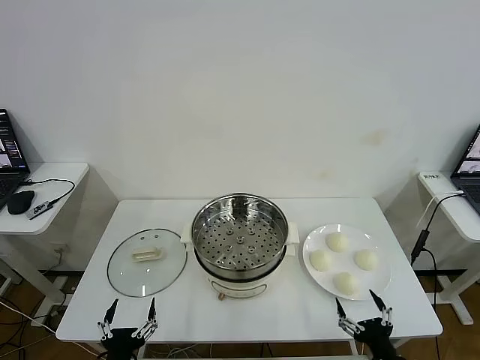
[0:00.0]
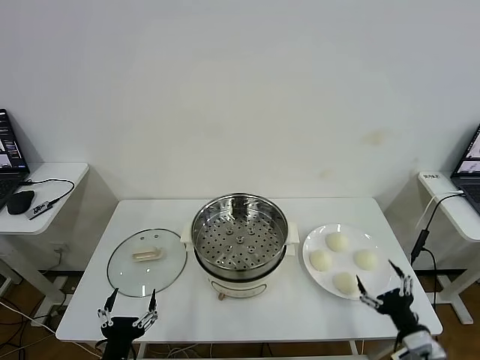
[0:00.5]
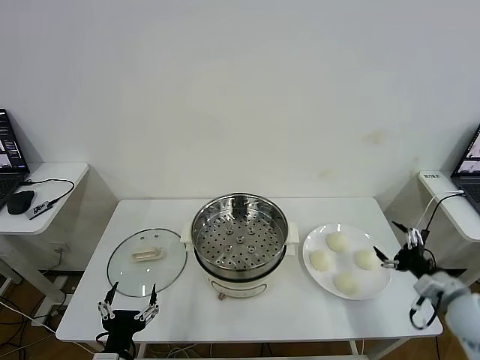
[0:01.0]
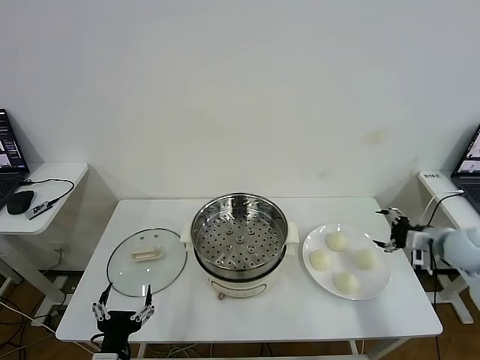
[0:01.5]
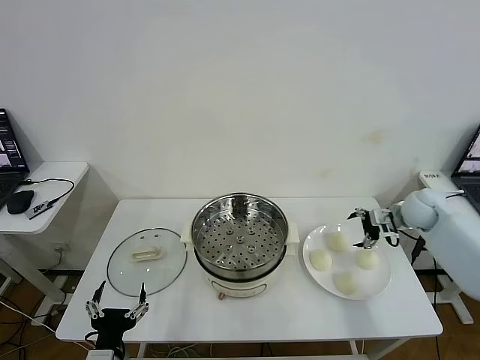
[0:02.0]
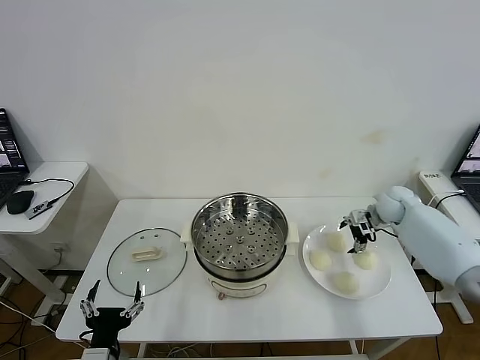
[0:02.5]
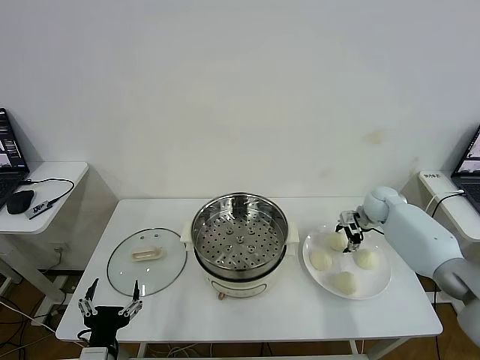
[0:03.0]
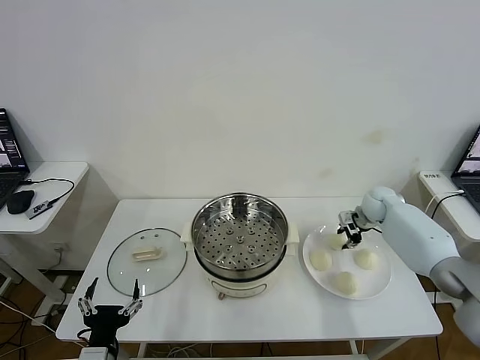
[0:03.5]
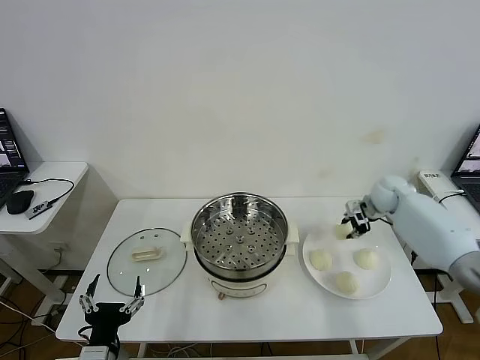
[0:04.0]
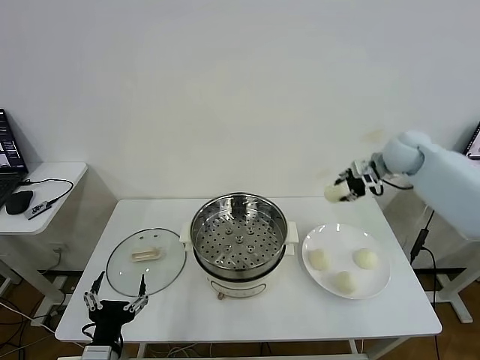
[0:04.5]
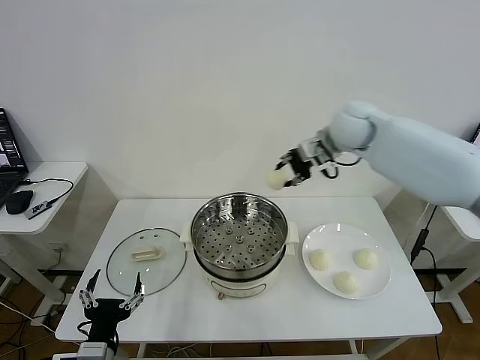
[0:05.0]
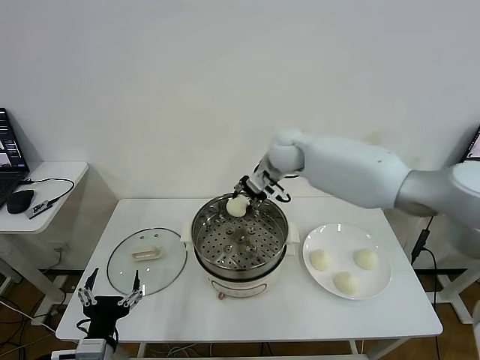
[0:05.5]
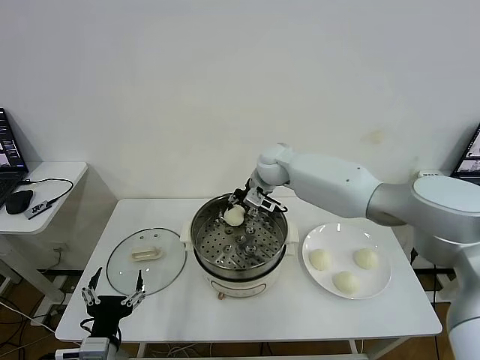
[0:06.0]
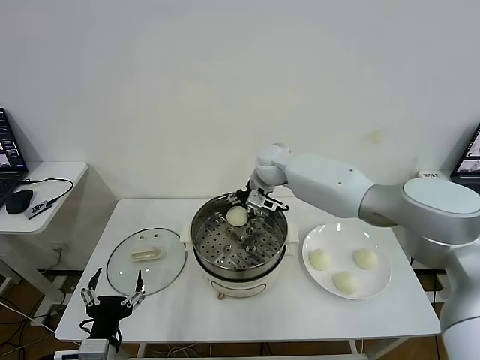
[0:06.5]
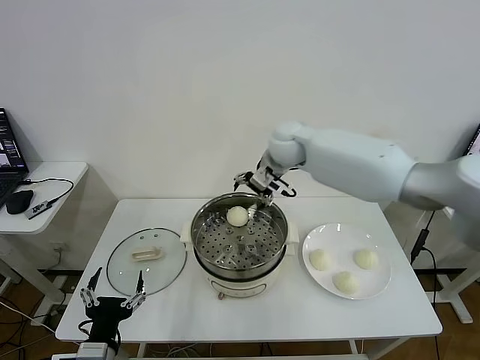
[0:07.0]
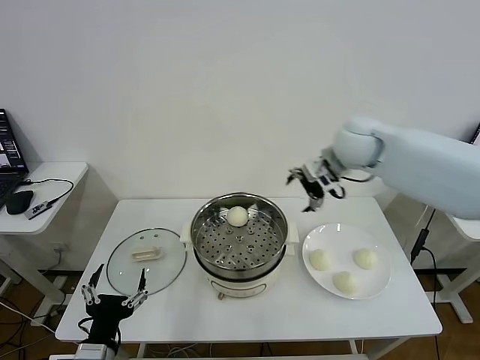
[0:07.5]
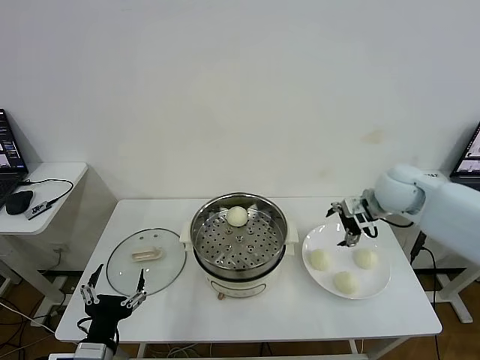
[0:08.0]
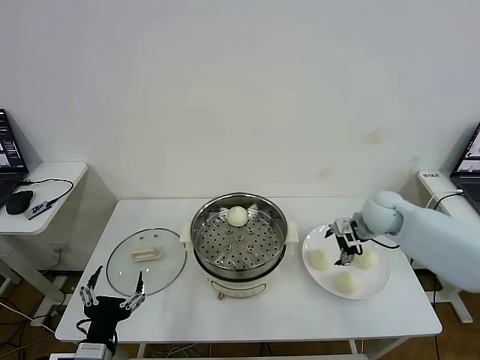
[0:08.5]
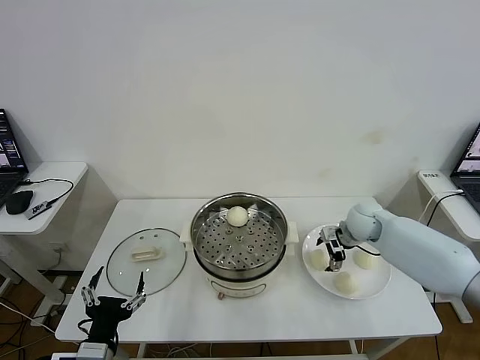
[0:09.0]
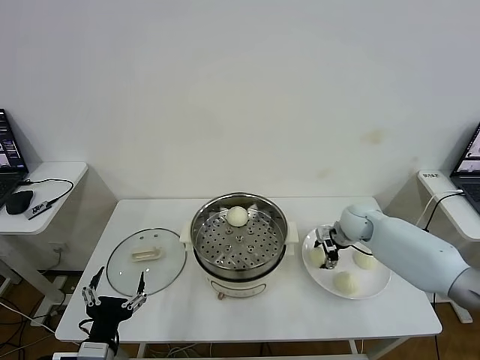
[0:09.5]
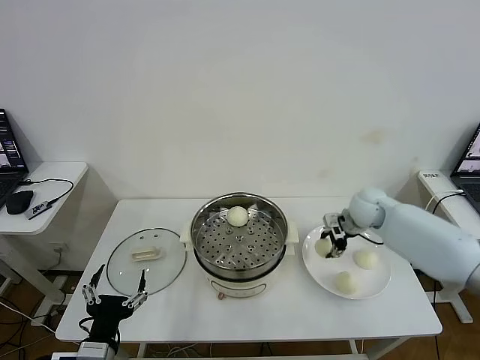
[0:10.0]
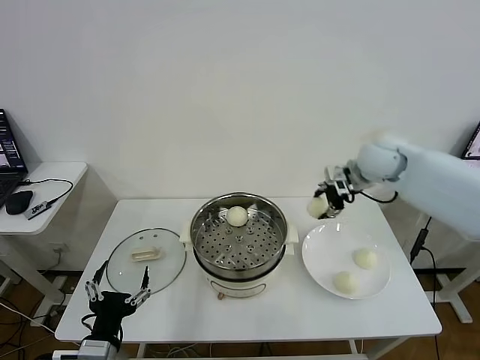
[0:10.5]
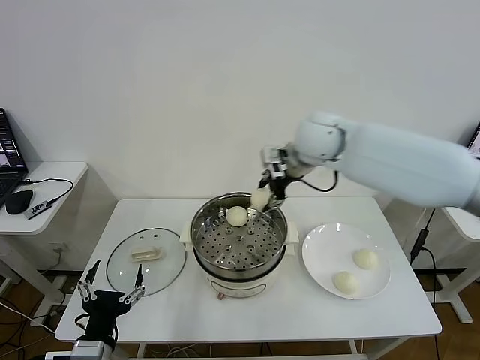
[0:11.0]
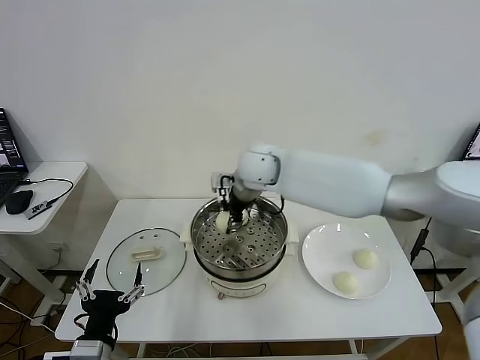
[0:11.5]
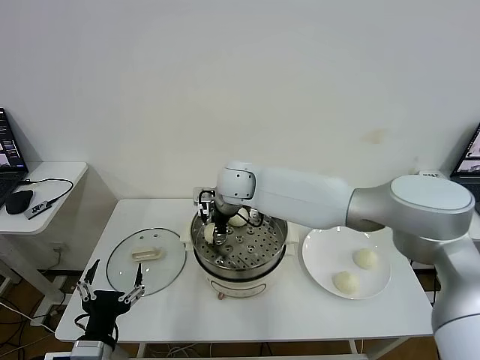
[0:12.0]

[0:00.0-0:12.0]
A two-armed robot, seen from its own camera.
Task of the whole recording: take steamed baozi put them in steamer then cover it.
Step, 0.0 to 3.5 s: Grasp the baozi in the plate with right gripper.
Step, 4.0 to 6.5 s: Place the baozi on the steamer with right gripper.
Step, 7.0 to 9.5 s: Grasp the baozi in the plate with right gripper.
2.0 to 4.0 s: The right gripper moves approximately 5 cm, and closes up.
4.0 to 6.0 s: The right gripper travels to the left by about 30 cm.
6.0 to 8.0 s: The right gripper is displaced to the right and backward by about 30 cm, and opens.
8.0 to 10.0 s: The right gripper is displaced downward by some 5 cm, and closes its fingers.
10.0 to 12.0 s: The right gripper travels to the left by approximately 35 cm.

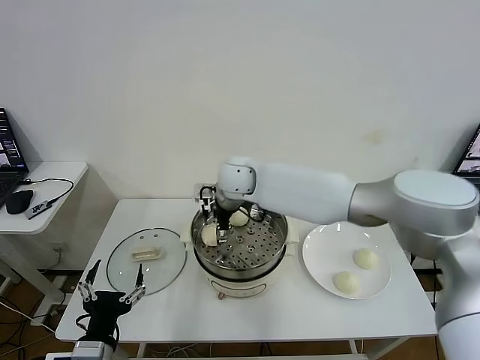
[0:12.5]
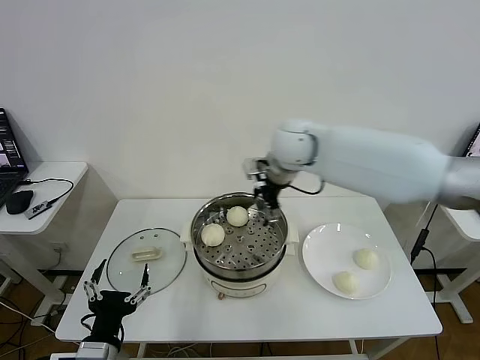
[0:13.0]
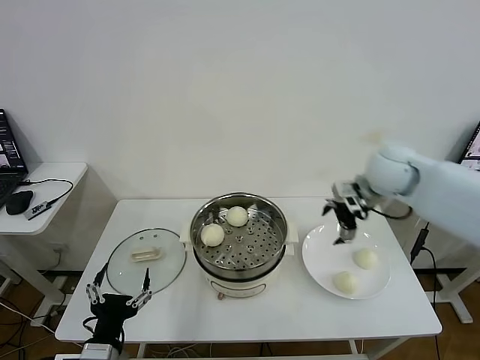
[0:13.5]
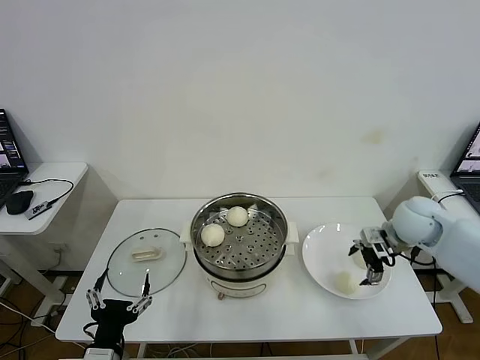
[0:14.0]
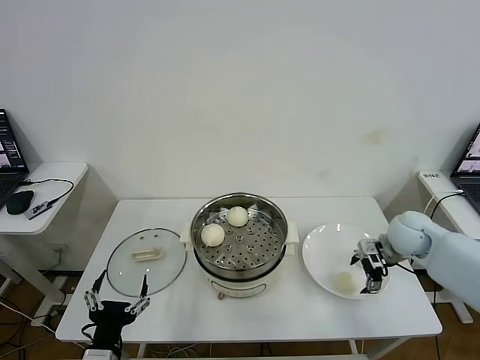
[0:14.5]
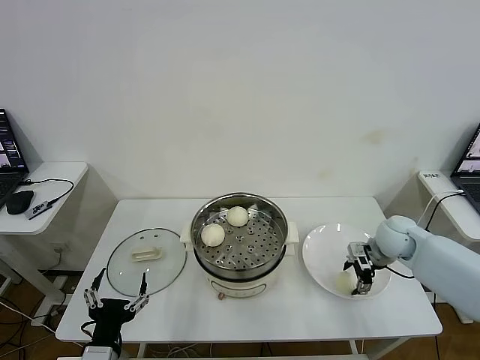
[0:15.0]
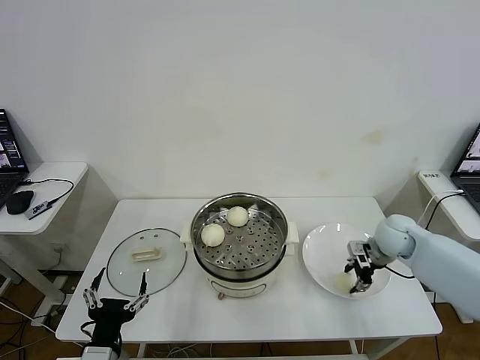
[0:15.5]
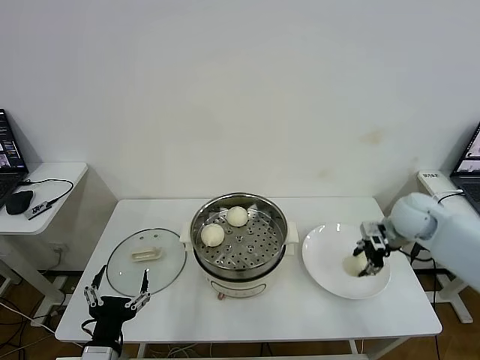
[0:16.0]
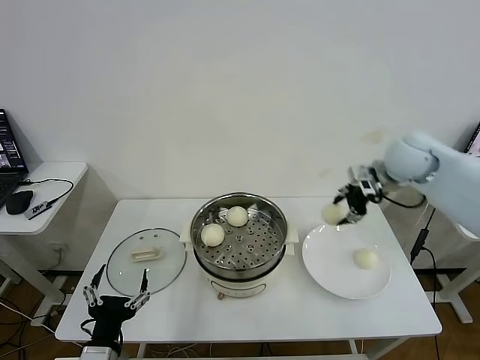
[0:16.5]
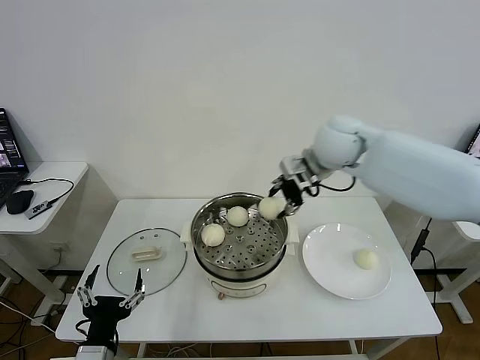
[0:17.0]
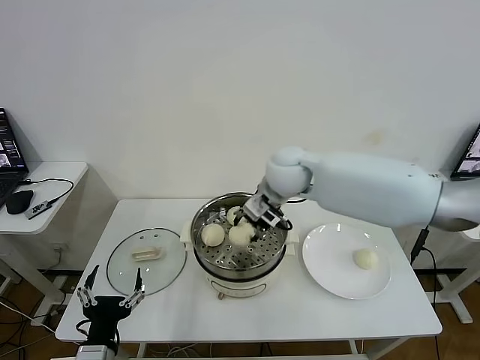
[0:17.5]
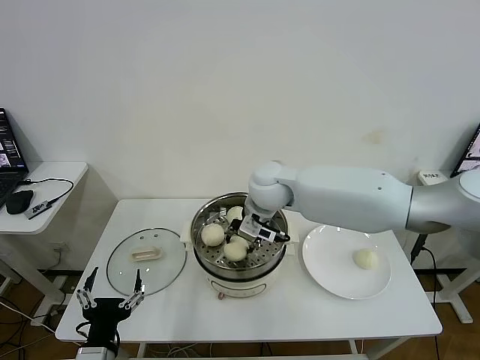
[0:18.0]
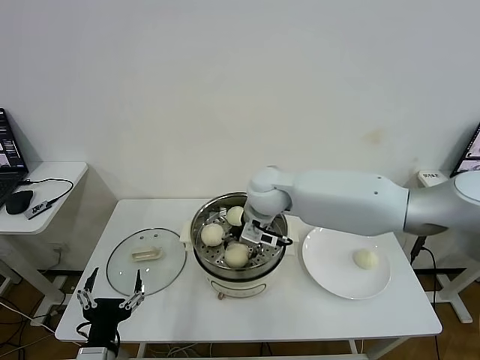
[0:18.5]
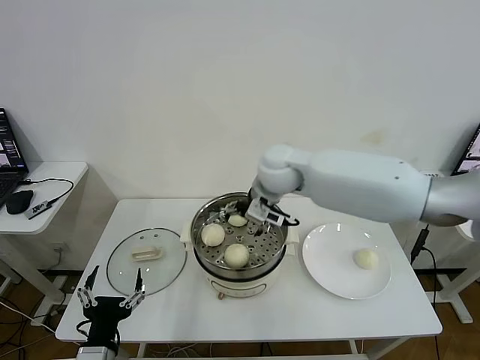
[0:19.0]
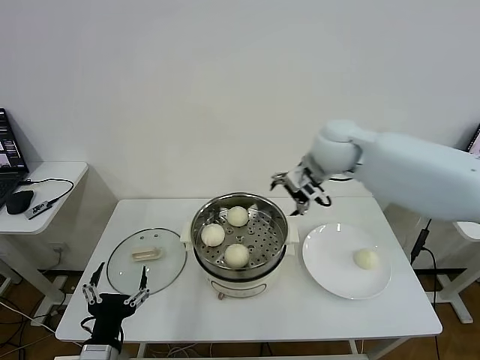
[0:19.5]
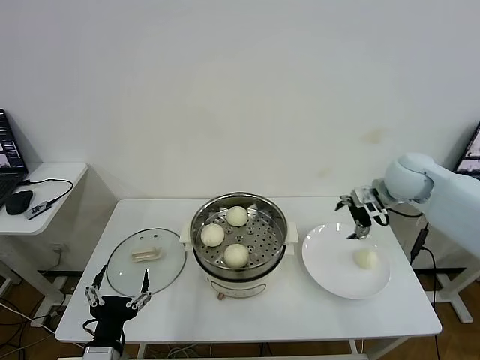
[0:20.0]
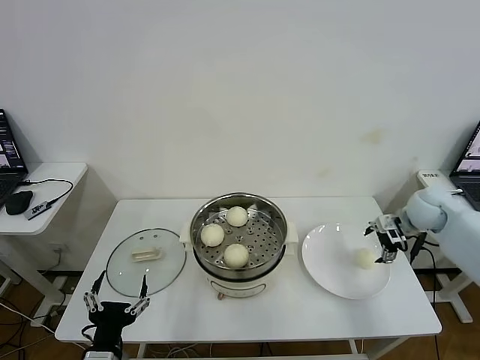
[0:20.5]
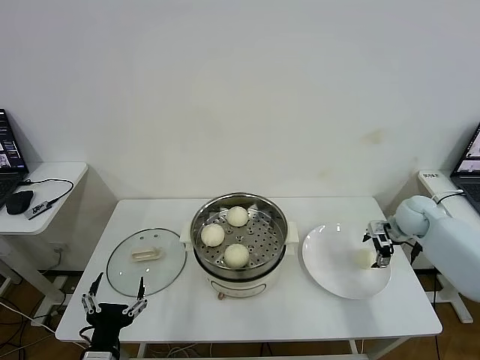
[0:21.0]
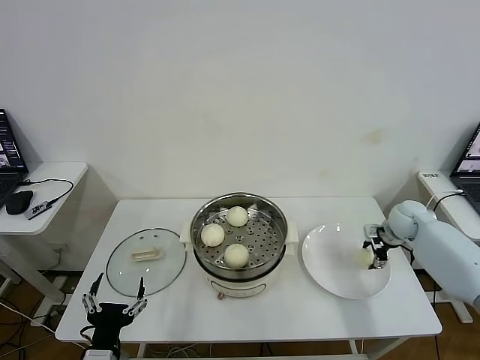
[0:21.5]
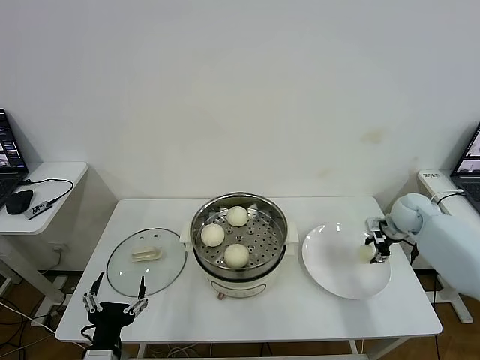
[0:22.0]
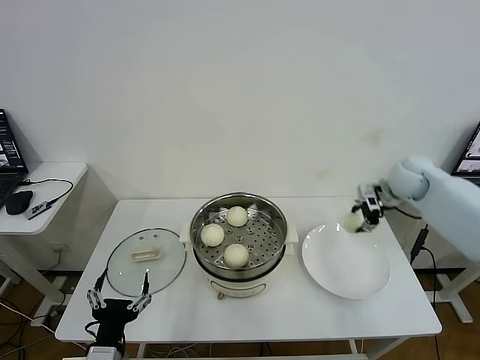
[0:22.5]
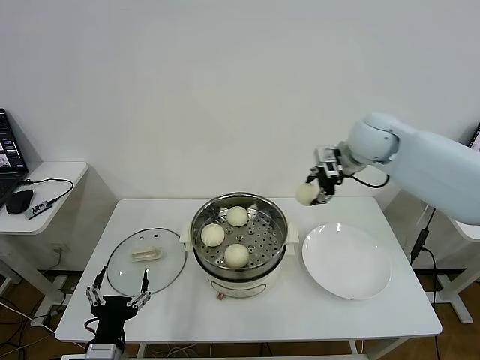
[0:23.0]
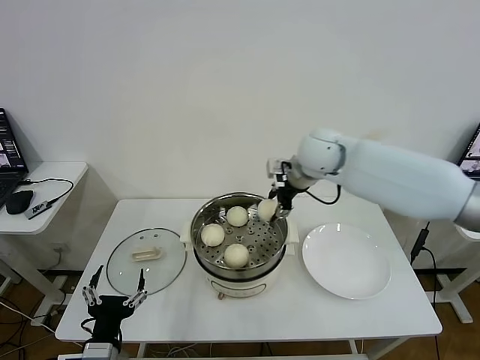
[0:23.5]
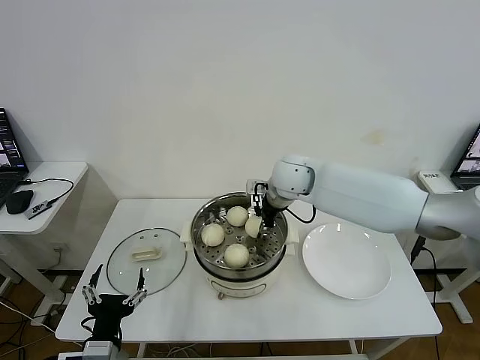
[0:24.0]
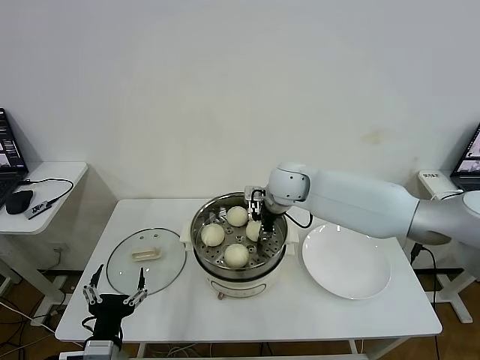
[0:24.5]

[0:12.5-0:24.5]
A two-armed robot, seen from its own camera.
Task of the whole recording: take steamed baozi put them in steamer then cover it.
Step, 12.5 to 15.0 s: Grasp the baozi in the plate with right gripper.
Step, 15.5 to 18.5 s: Place the baozi on the steamer with right gripper.
Step, 19.0 to 21.5 s: Grasp the baozi in the plate with right gripper.
12.5 to 14.5 s: The right gripper is displaced to the right by about 40 cm.
14.5 to 16.5 s: The right gripper shifts roughly 20 cm upward, and closes.
16.5 to 18.5 s: The right gripper heads to the left, covering some 25 cm, and opens up.
18.5 to 20.5 s: The right gripper moves to the right, some 40 cm.
20.5 to 22.5 s: The right gripper shifts some 10 cm upward and to the left, and closes its fingers.
22.5 to 24.5 s: The right gripper goes roughly 25 cm to the left.

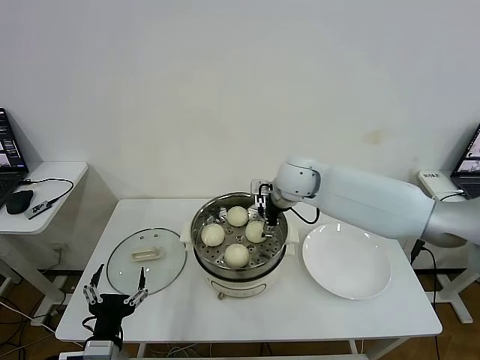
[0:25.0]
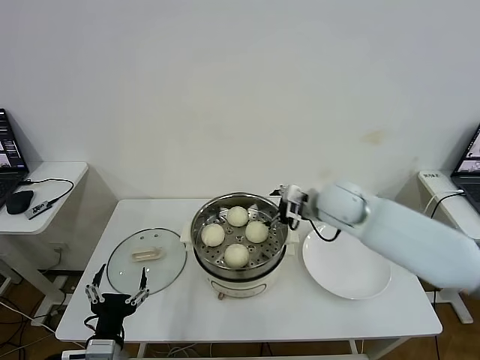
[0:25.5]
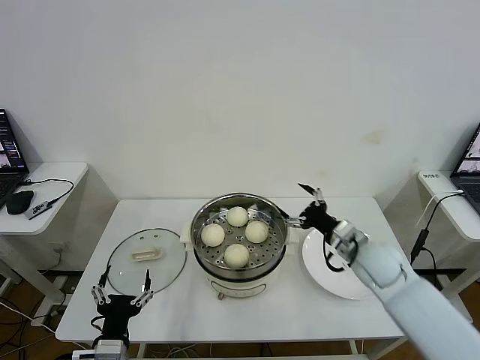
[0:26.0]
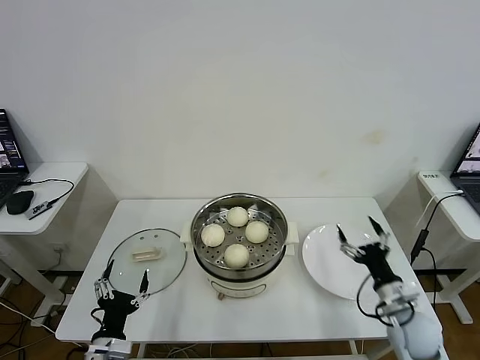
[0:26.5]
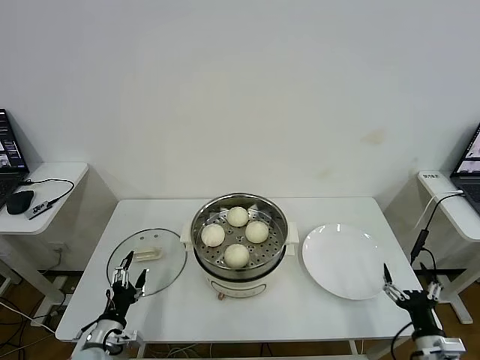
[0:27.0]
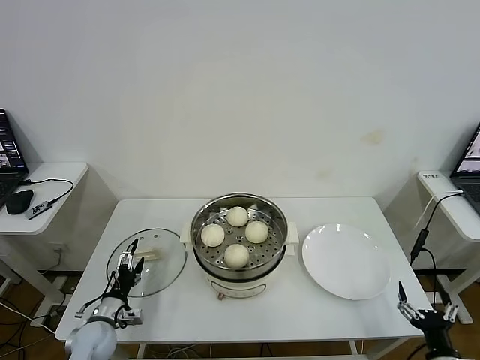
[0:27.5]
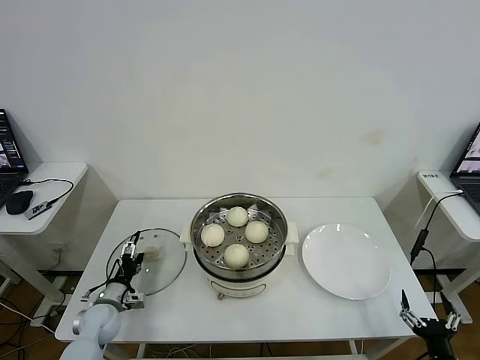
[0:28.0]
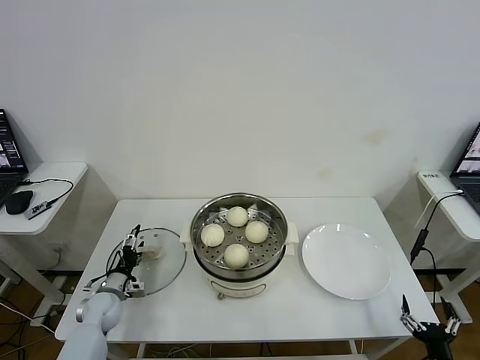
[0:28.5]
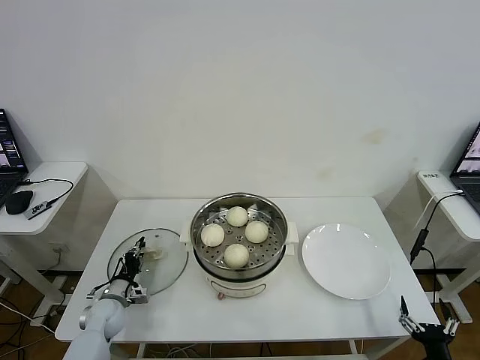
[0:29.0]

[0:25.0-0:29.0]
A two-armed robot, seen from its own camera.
Task of the whole recording: take steamed baozi put them in steamer then cover it.
25.0 to 27.0 s: The right gripper heads backward, to the right and downward, covering roughly 50 cm; the left gripper shifts some 15 cm downward, to the left and forward.
27.0 to 29.0 s: The right gripper is displaced backward by some 5 cm. Meanwhile the left gripper moves forward, roughly 15 cm, and closes up.
